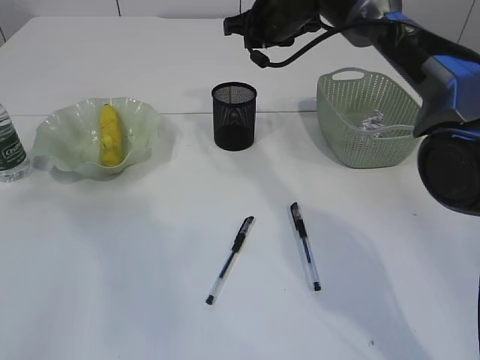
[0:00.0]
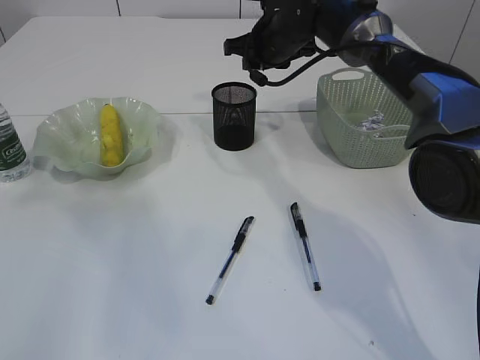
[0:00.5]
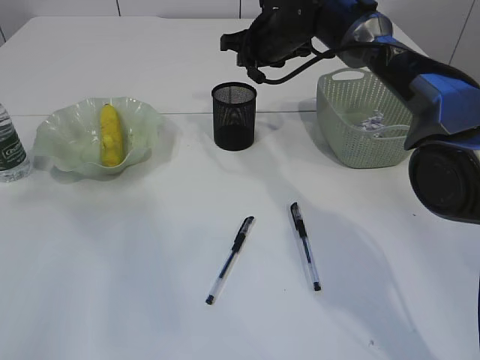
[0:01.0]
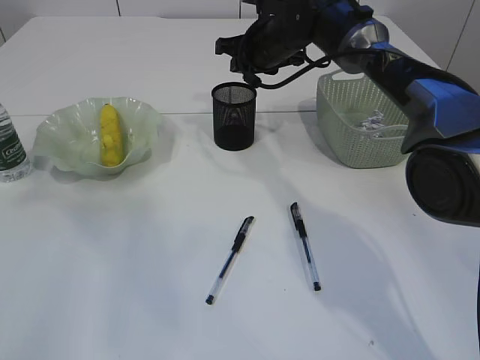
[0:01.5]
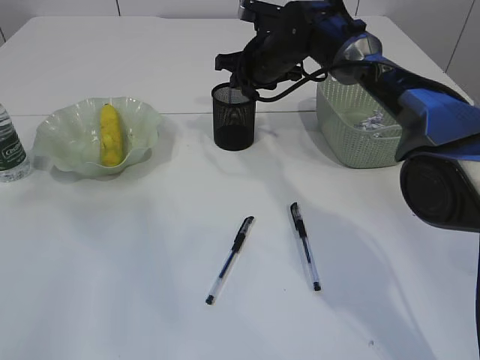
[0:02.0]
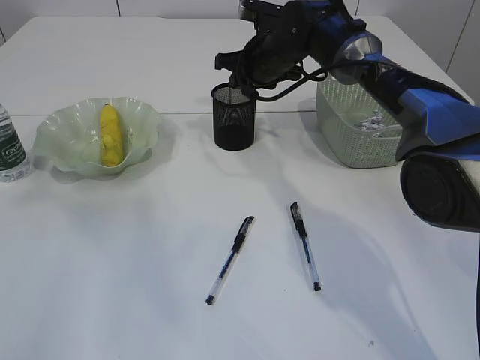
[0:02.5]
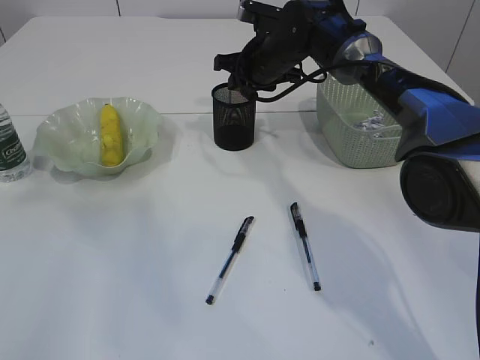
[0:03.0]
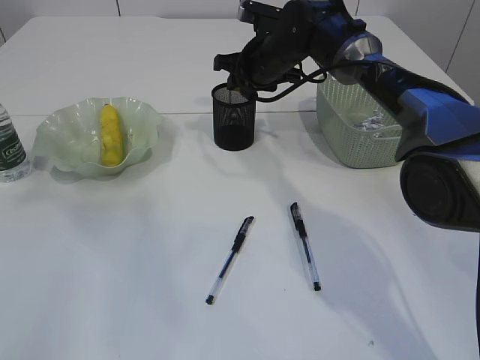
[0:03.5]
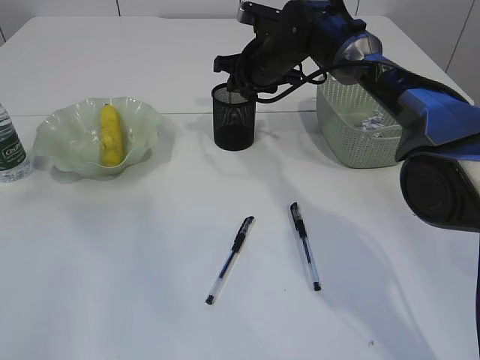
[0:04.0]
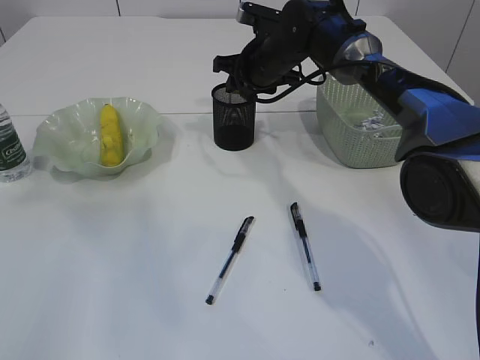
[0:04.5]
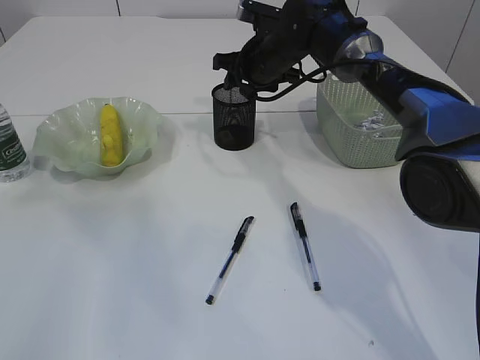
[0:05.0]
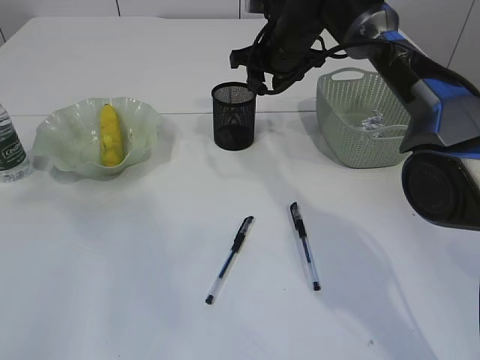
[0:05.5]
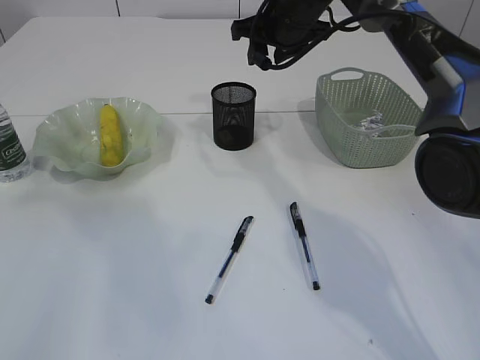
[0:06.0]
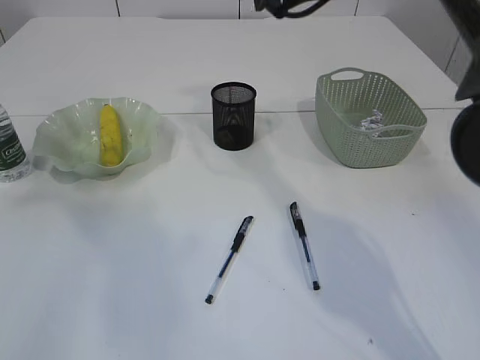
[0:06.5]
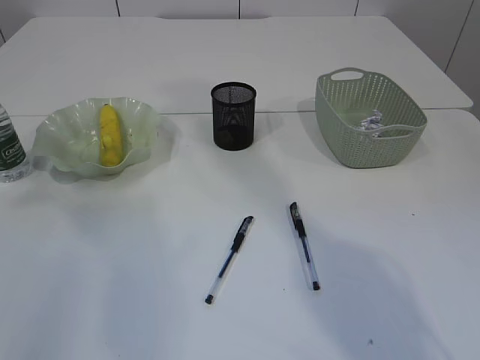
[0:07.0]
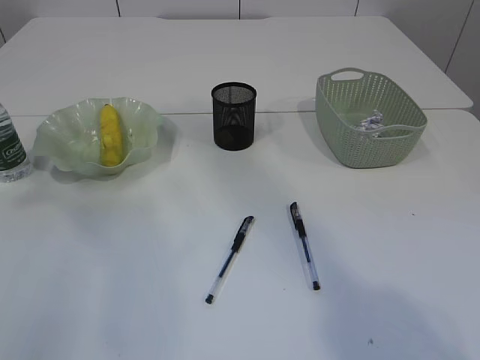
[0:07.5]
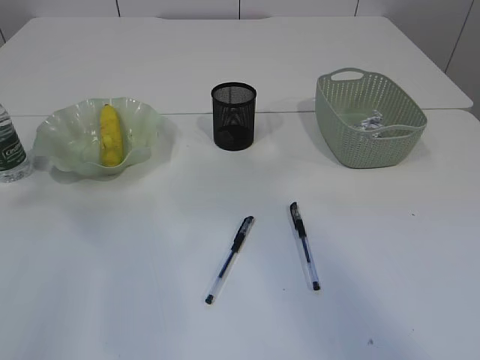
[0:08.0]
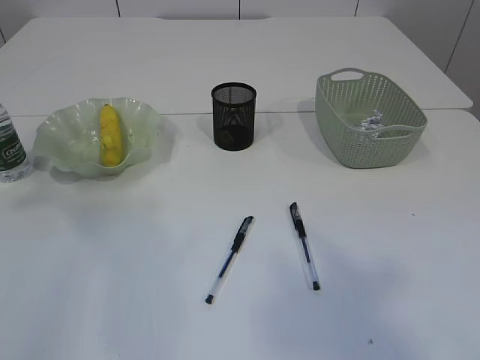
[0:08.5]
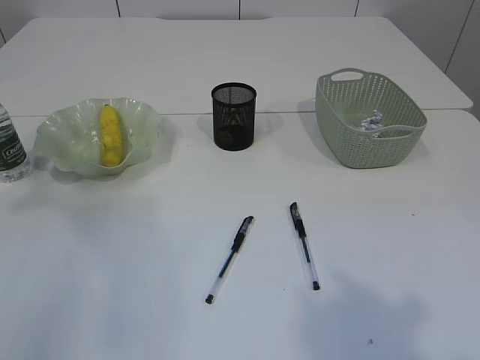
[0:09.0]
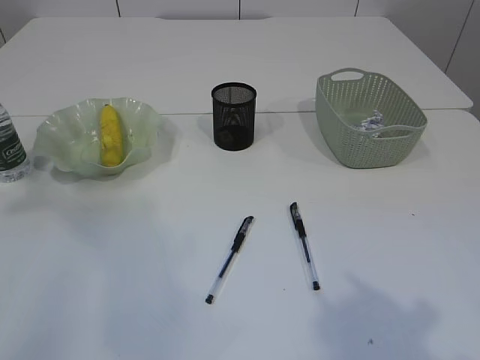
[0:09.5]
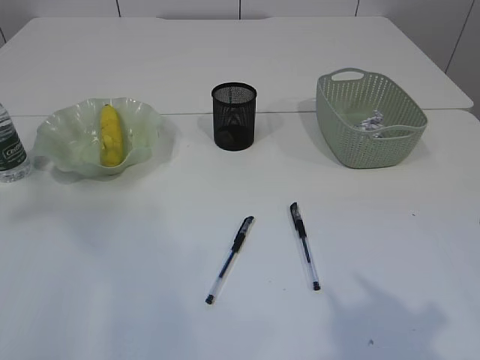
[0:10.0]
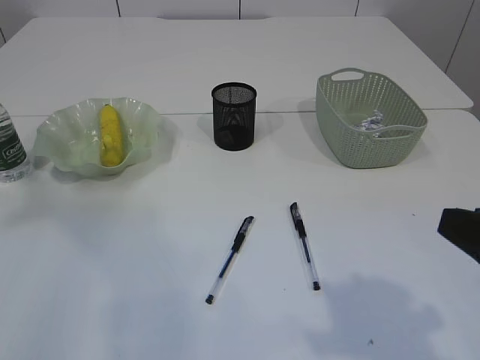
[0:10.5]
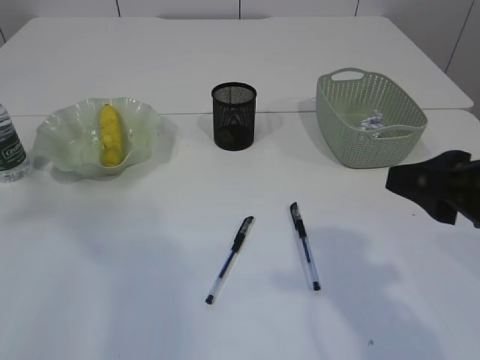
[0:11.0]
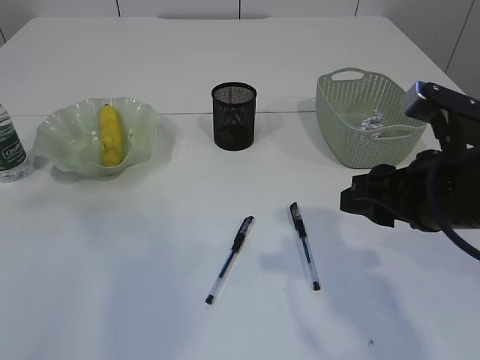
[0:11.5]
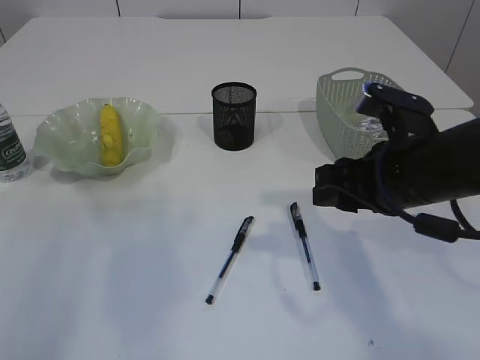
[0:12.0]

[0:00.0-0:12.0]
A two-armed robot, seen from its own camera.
Step, 0:00.0 to 0:05.0: Place the eraser into the pen holder.
0:00.0 to 0:02.0: The right gripper is displaced downward by some 5 cm.
0:02.0 to 0:04.0: The two grippers keep their place.
0:04.0 to 0:06.0: The right gripper heads upward, covering roughly 10 cm.
0:06.0 to 0:08.0: The right gripper heads backward and upward, covering roughly 50 cm.
0:10.0 to 0:12.0: The left gripper heads forward, covering some 5 cm. The right gripper is displaced forward by roughly 20 cm.

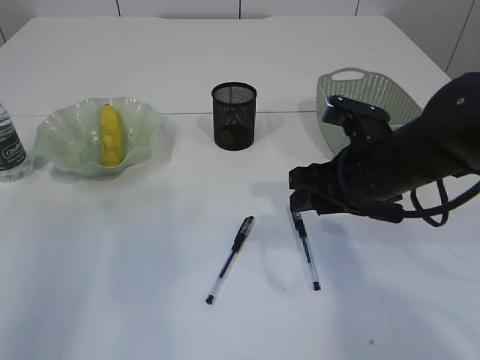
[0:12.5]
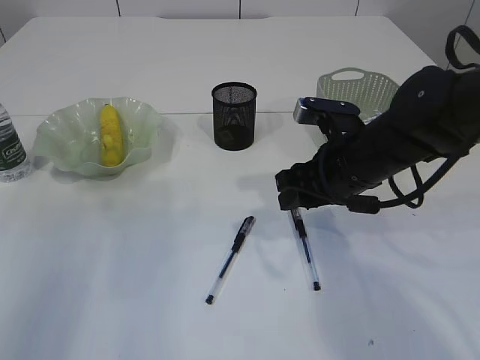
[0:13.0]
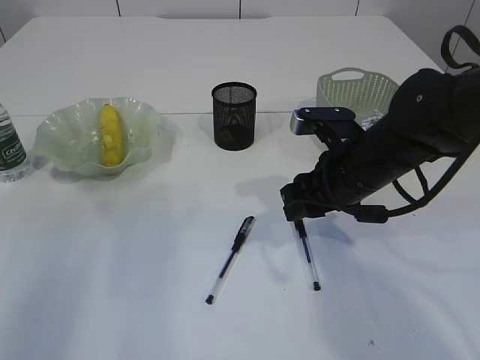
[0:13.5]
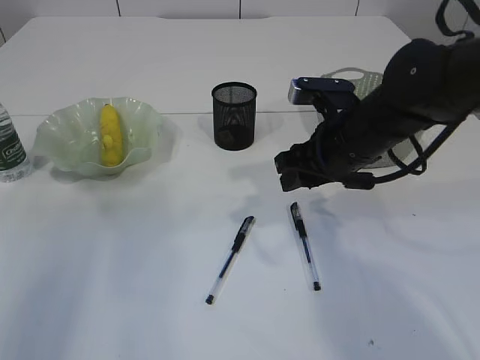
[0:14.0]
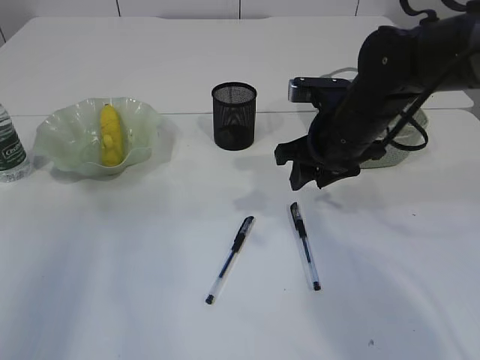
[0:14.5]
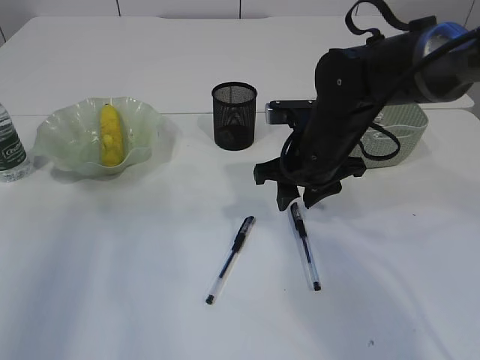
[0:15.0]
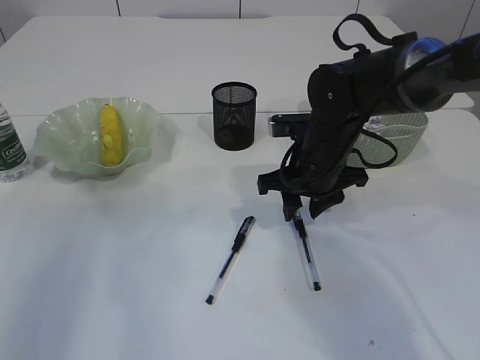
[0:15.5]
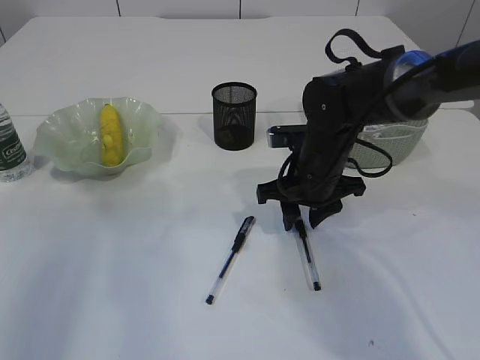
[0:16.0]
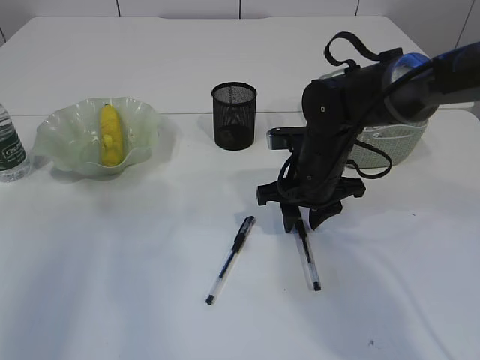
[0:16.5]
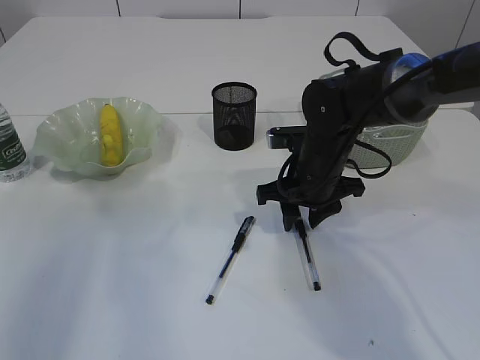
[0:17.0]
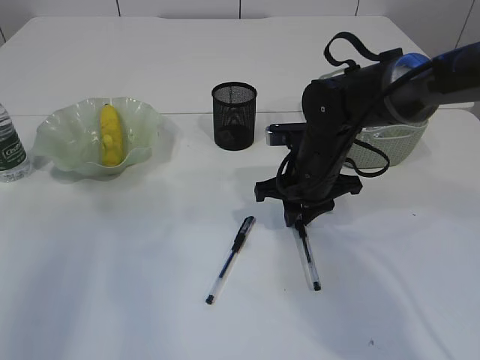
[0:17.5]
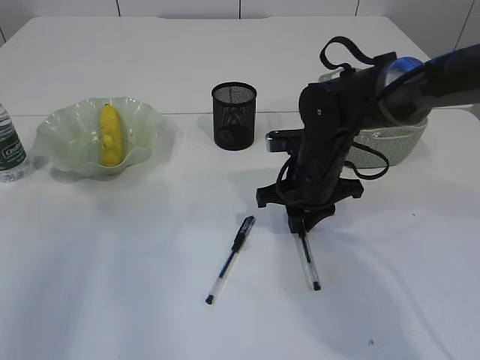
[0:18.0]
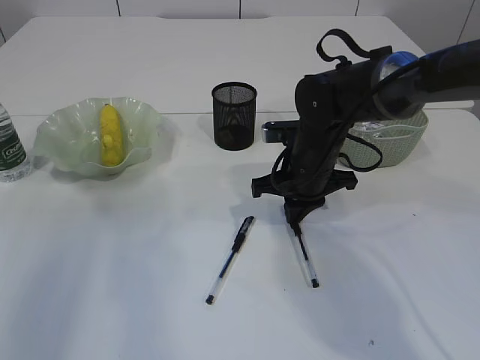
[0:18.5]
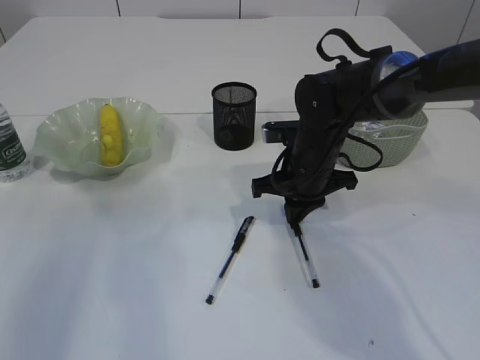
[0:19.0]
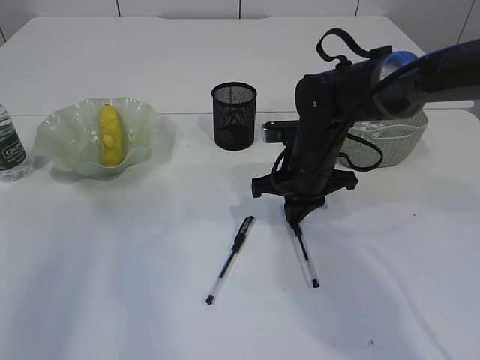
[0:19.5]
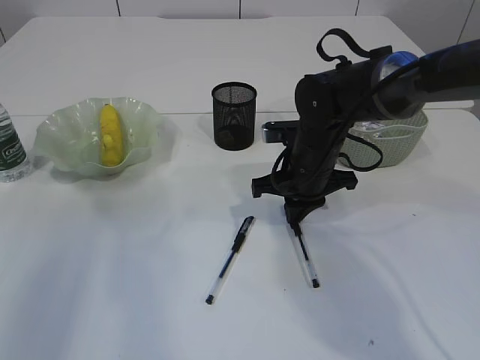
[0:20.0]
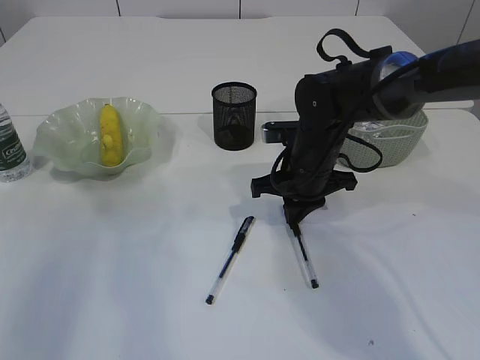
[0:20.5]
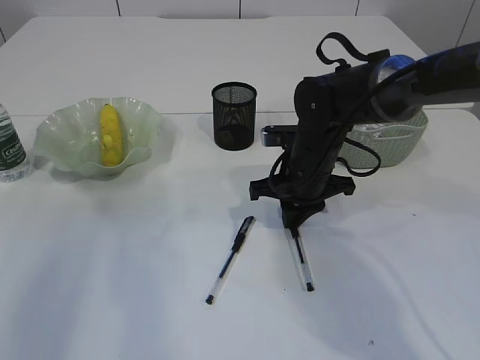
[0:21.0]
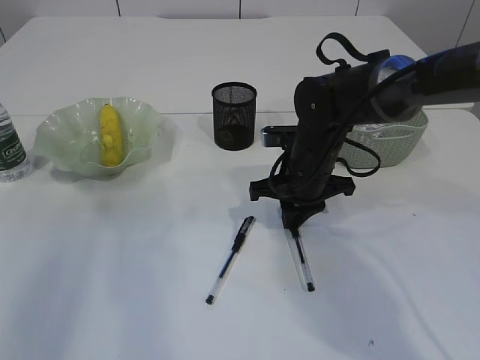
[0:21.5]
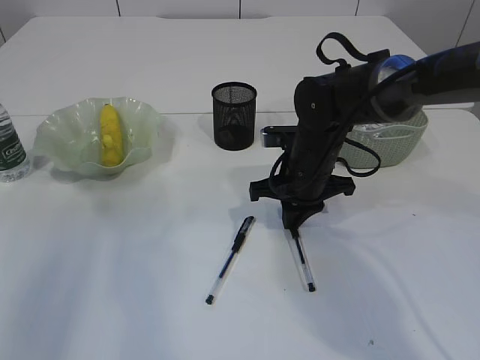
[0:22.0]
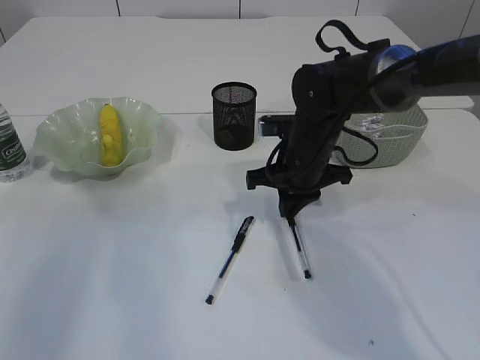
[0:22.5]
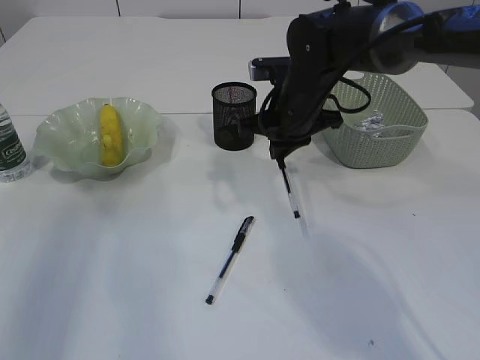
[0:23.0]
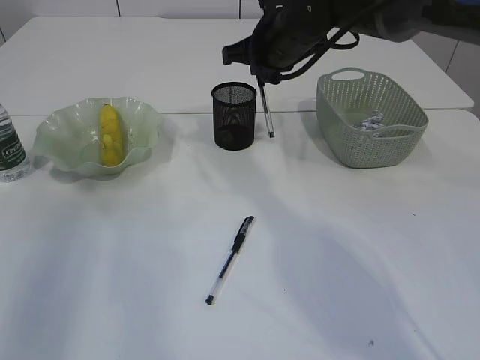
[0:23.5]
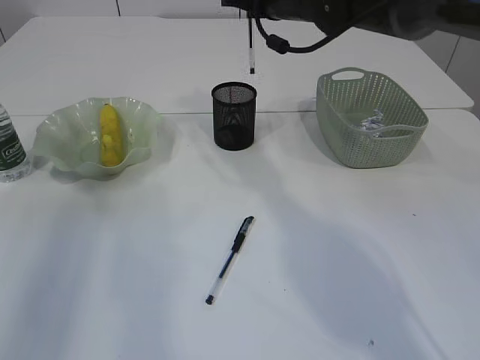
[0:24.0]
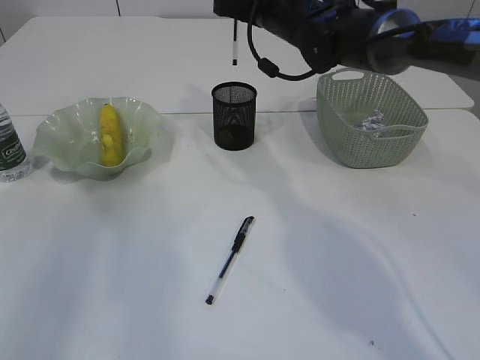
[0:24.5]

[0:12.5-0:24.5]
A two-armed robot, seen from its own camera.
Step, 0:12.5 to 0:22.5: Pick up the pen with right arm.
0:12.5 to 0:14.5: The right gripper is displaced forward by approximately 5 cm.
0:14.5 to 0:16.5: The right gripper goes roughly 5 cm downward.
0:16.5 to 0:18.5: The right gripper closes.
0:18.5 to 0:22.5: The two grippers keep their place.
0:22.5 to 0:24.5: The right gripper travels upward and forward by about 20 cm.

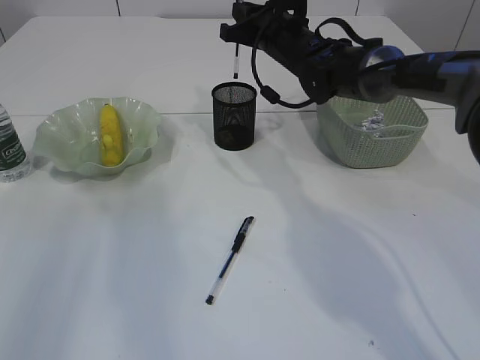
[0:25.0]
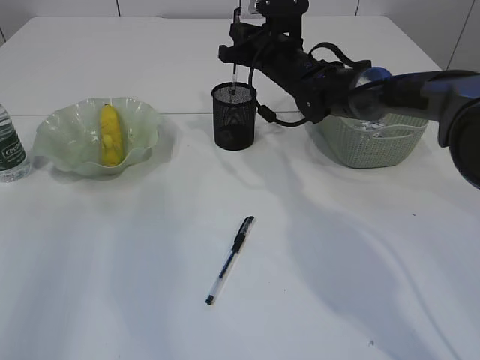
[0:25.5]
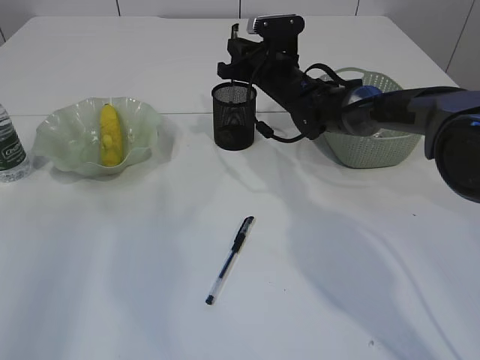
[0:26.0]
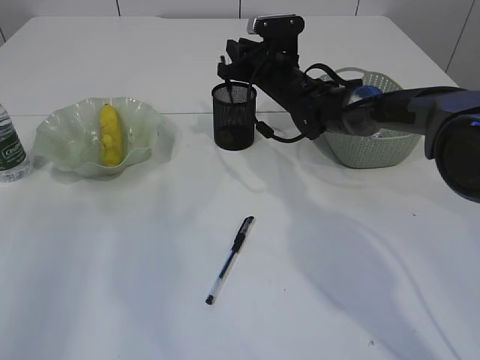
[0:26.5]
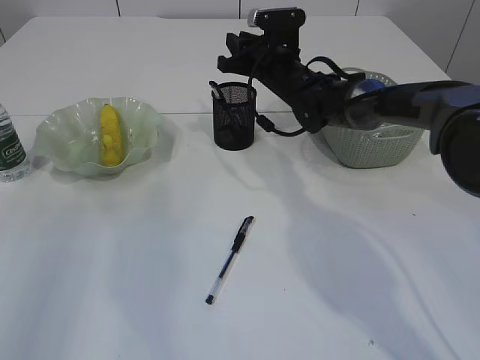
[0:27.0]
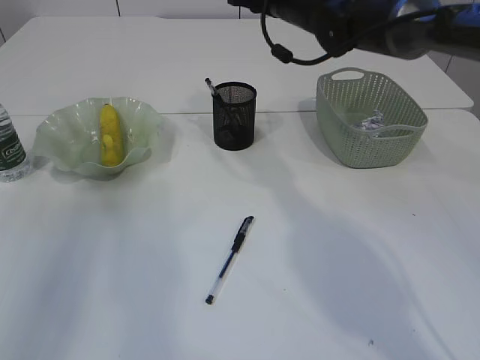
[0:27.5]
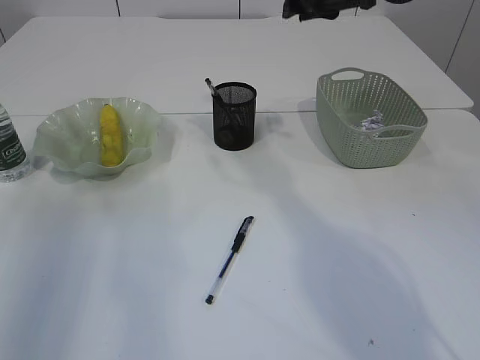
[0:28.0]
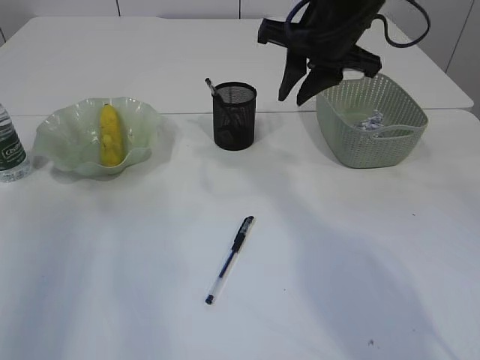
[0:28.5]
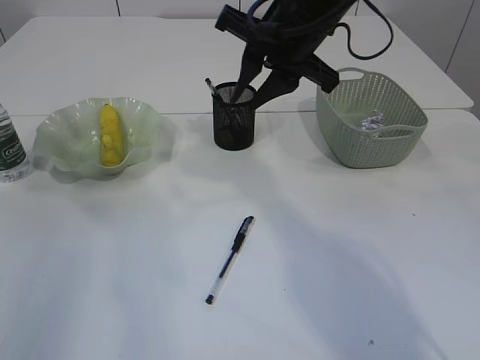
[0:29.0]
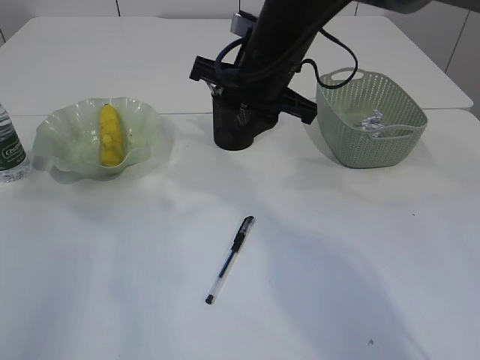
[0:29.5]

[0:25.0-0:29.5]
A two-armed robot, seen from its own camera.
0:25.0 to 0:27.0: The right gripper heads downward, covering approximately 5 cm.
0:27.0 to 0:29.5: The right gripper heads backward and upward, covering roughly 20 cm.
